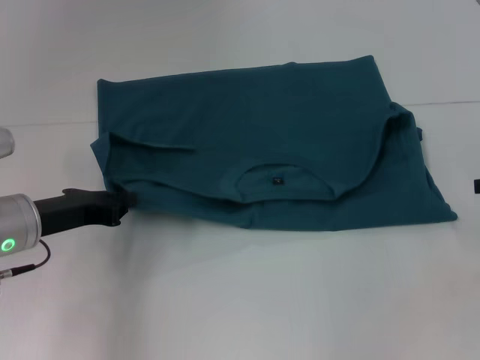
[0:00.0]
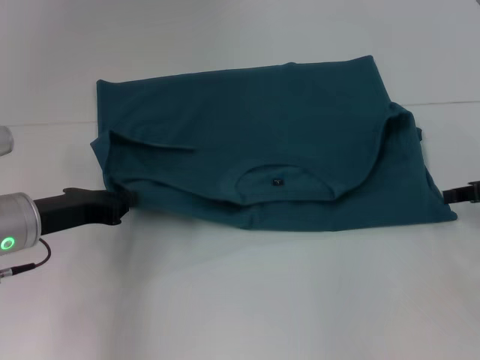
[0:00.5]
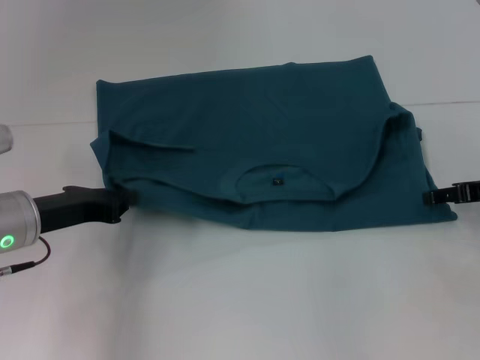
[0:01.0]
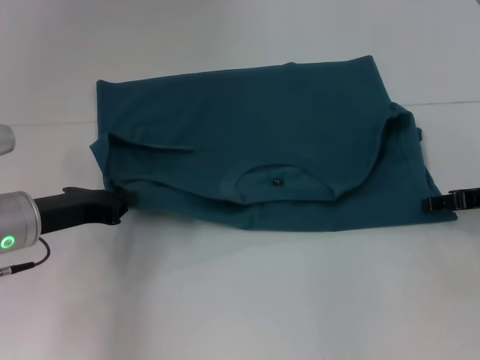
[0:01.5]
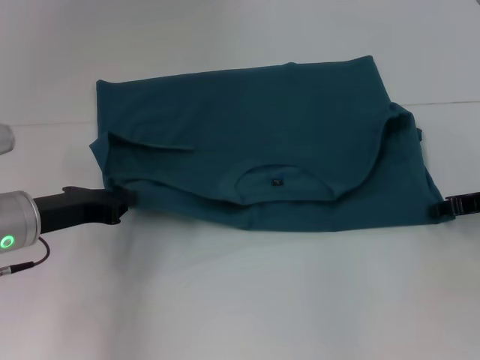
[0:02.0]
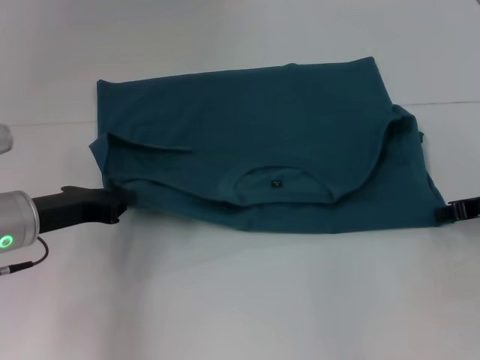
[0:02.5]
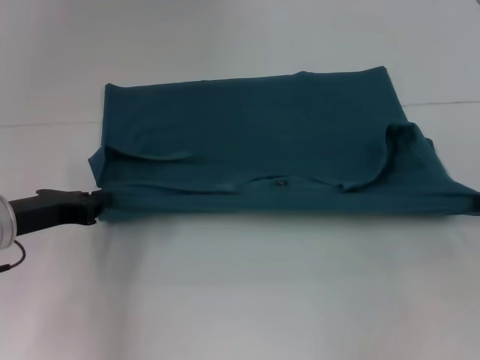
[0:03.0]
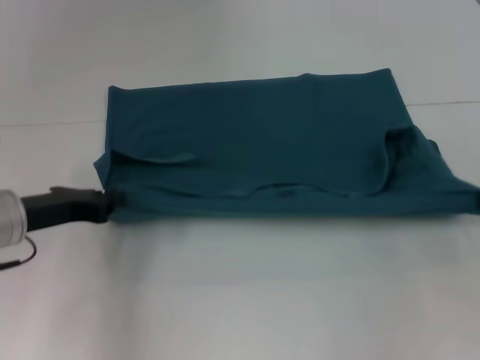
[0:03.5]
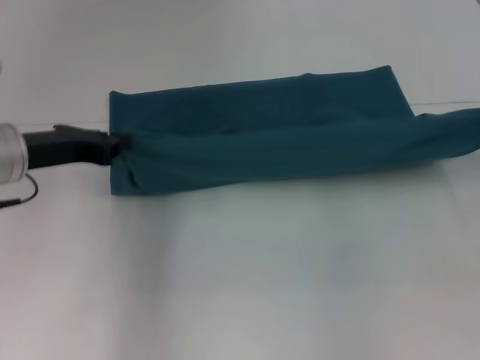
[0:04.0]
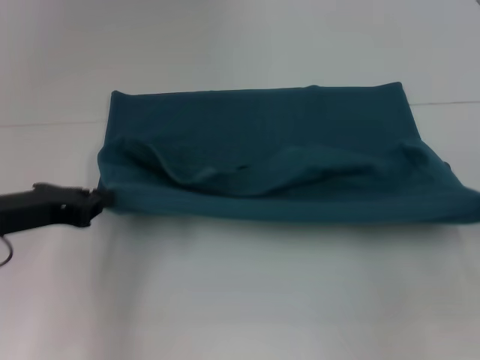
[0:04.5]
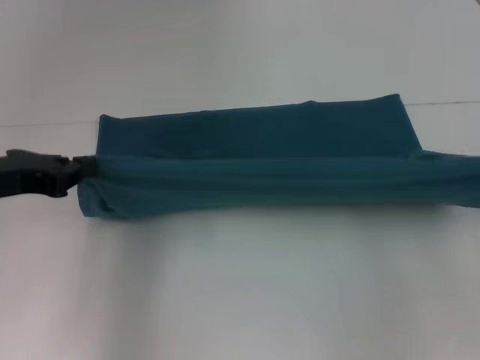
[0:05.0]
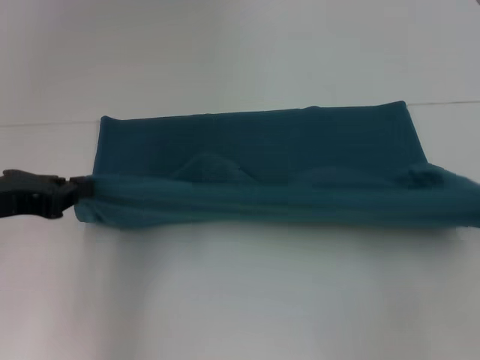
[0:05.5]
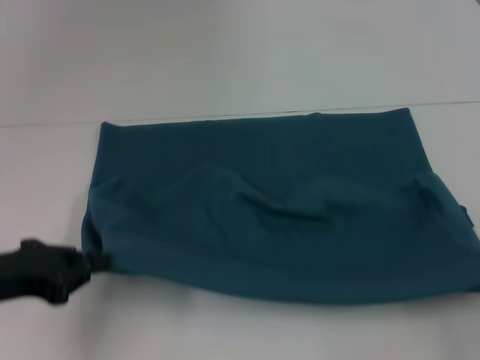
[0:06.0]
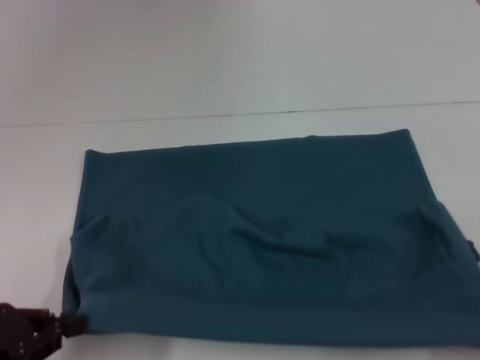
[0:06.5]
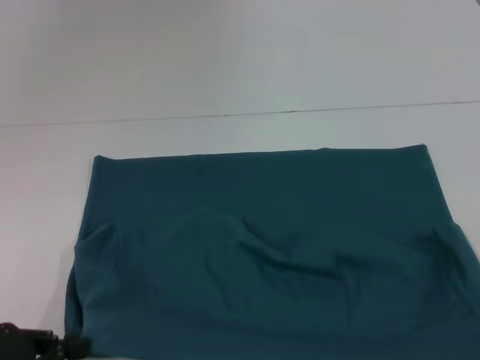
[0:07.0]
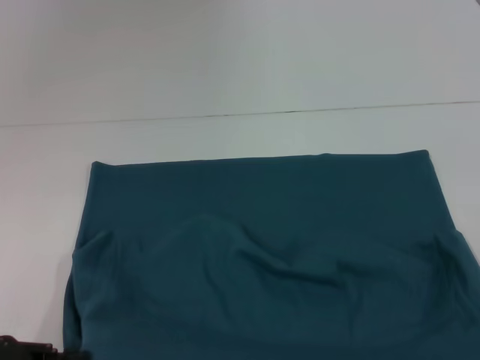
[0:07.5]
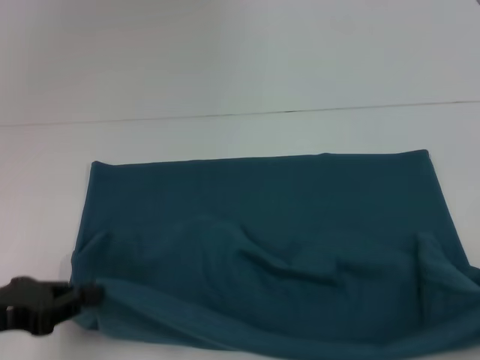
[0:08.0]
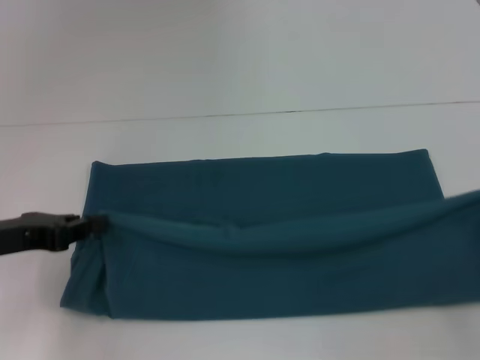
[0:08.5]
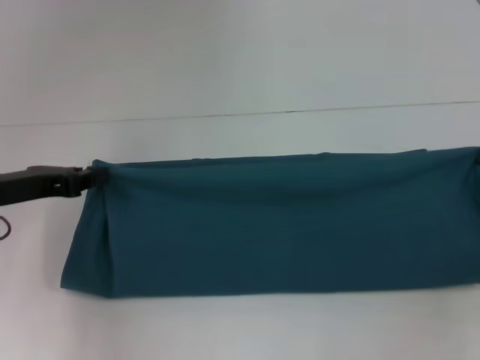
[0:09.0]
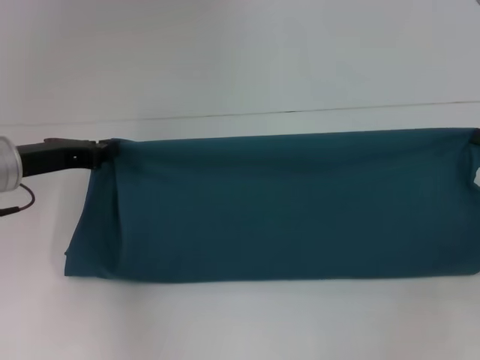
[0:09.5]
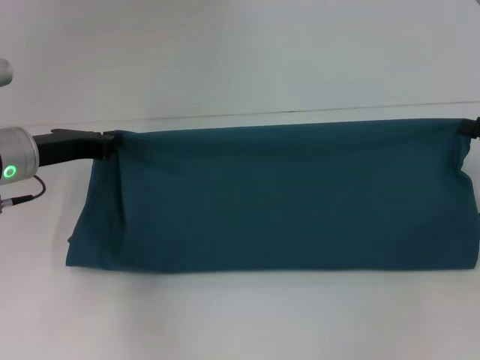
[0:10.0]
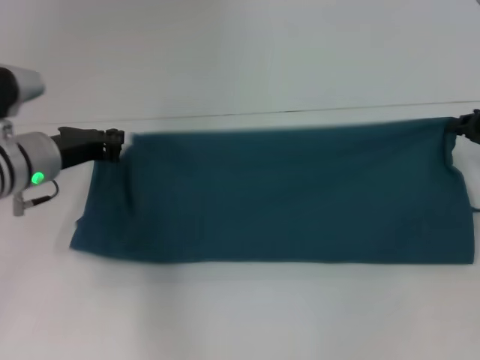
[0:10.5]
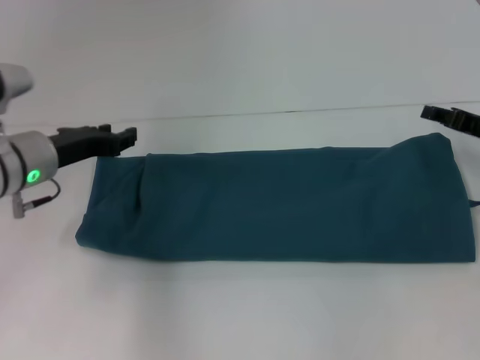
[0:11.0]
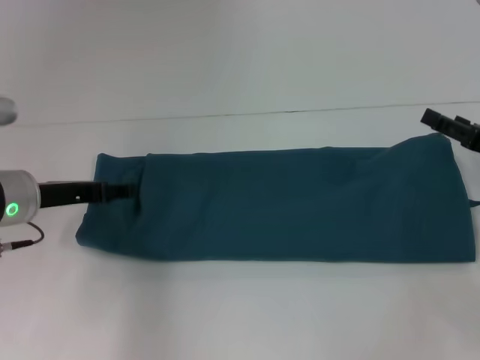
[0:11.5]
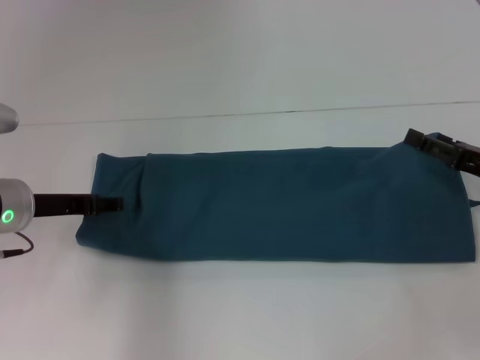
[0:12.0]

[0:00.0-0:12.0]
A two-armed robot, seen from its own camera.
Step, 0.0 to 6.5 s: Pull the clothes with your left hand.
Step, 0.0 to 6.5 s: Pull the clothes with your right hand.
Step, 7.0 to 11.0 s: Fold the clothes to the left.
Step, 7.0 to 11.0 s: Fold the clothes to the right.
0.0 to 2.0 s: The right gripper changes place by about 10 cm, and opens up.
2.0 to 4.0 s: The right gripper is displaced upward and to the right by about 10 cm, and closes up. Meanwhile the left gripper moves upward, roughly 5 cm.
4.0 to 6.0 s: The right gripper travels backward and downward by approximately 15 cm, while the left gripper shifts roughly 10 cm backward.
6.0 to 8.0 s: The right gripper moves backward, some 5 cm.
8.0 to 10.0 s: Both grippers move forward, some 20 cm.
10.0 to 12.0 s: The right gripper changes place by some 5 cm, and opens. The left gripper opens its fingers.

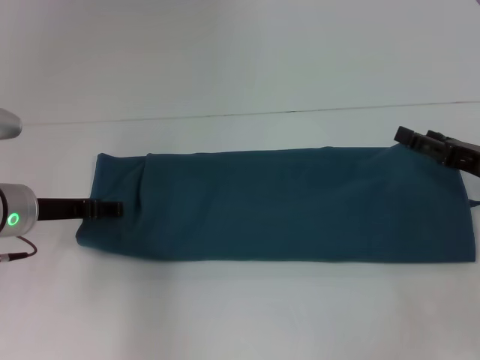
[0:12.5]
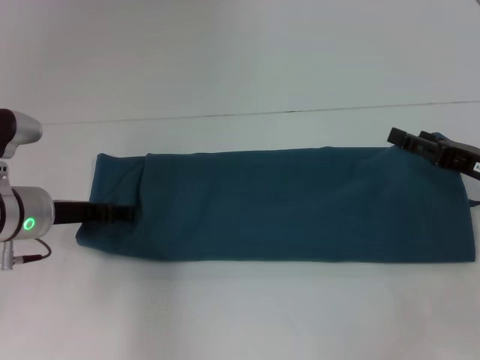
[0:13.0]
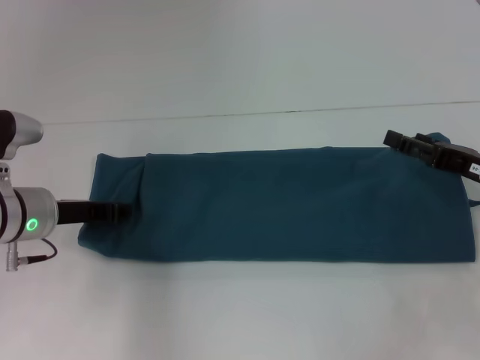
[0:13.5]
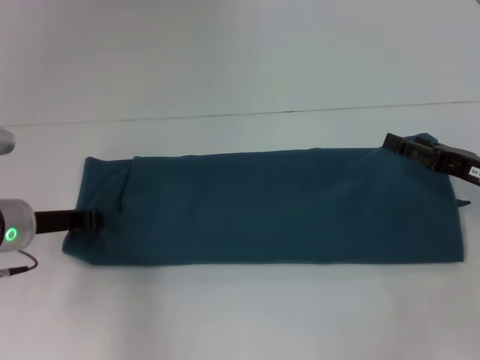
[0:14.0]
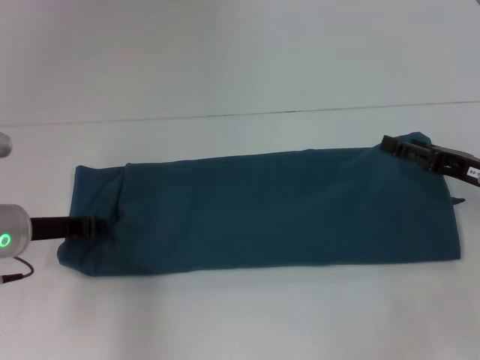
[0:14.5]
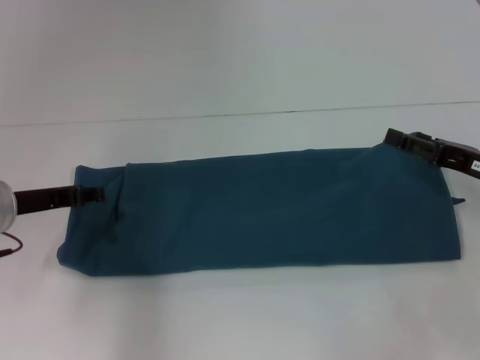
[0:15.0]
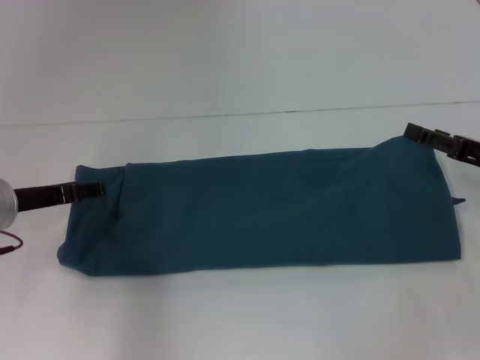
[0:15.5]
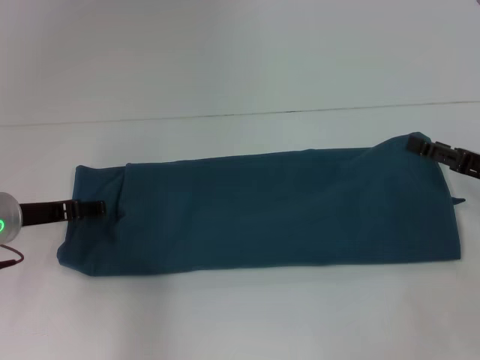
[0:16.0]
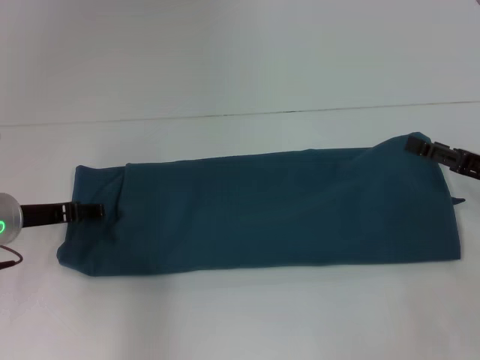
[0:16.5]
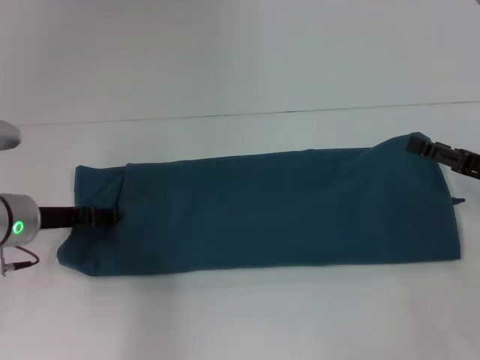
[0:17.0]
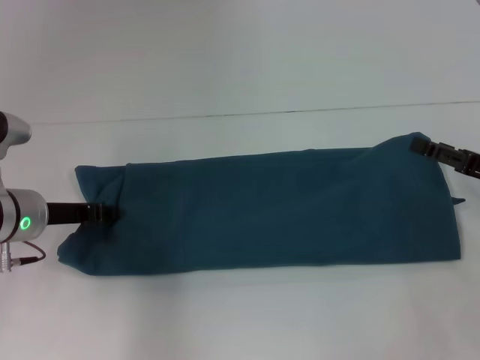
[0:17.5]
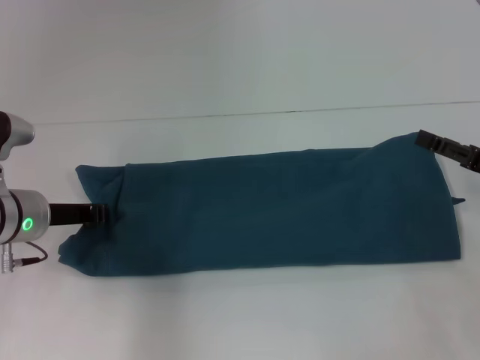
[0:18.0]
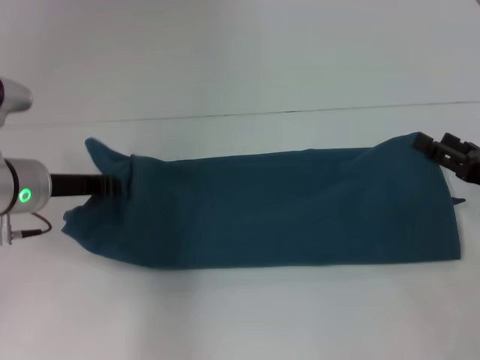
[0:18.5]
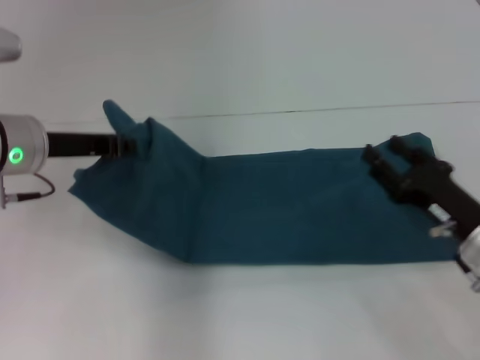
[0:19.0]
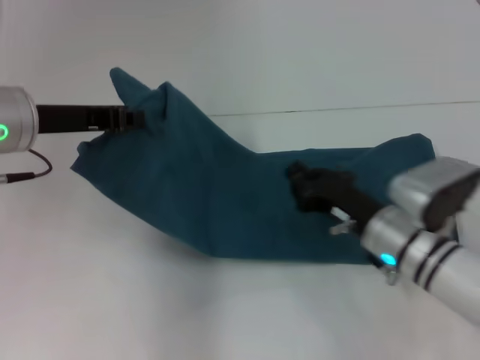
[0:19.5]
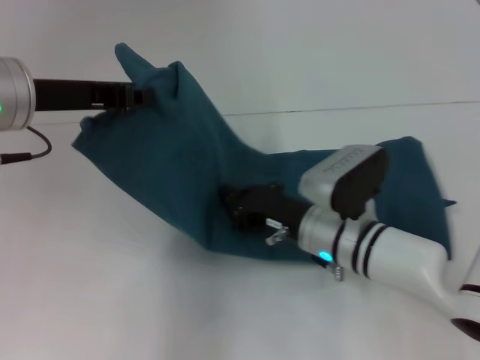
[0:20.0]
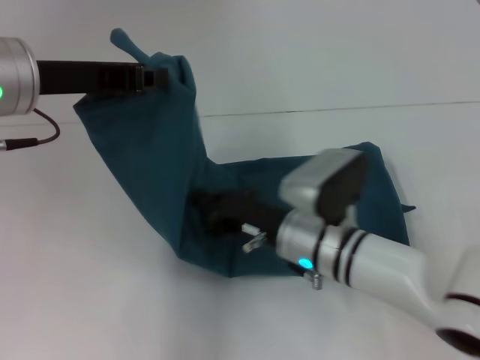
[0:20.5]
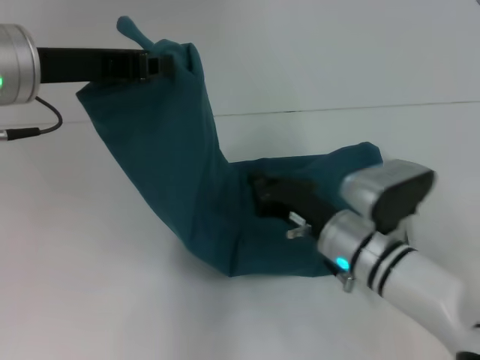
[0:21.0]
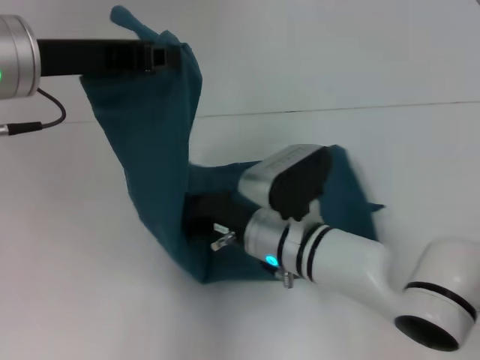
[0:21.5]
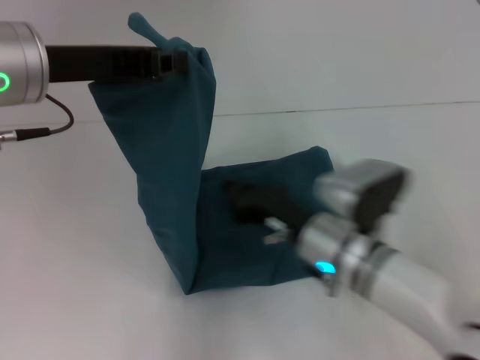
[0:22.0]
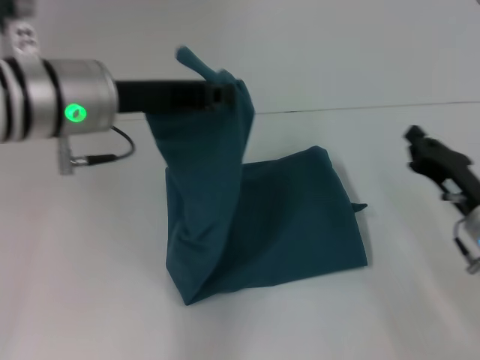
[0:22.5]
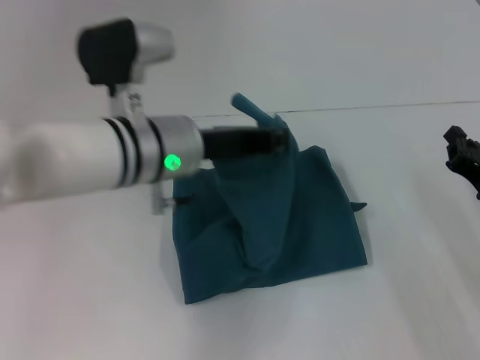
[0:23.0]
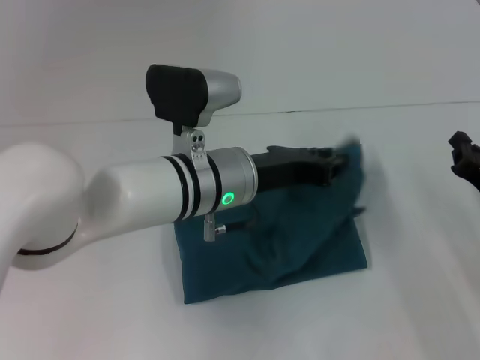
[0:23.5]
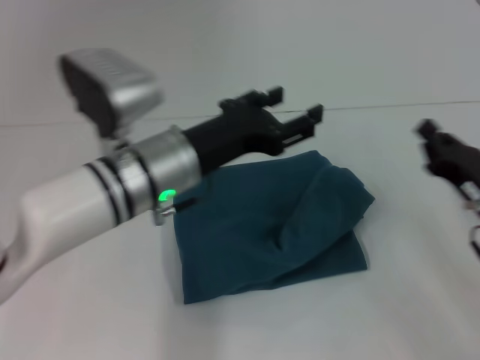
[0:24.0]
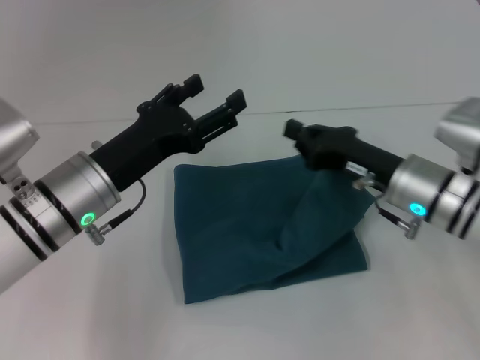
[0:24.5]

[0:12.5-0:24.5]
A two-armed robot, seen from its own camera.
Step, 12.5 to 21.5 s: Press the middle of the clothes with your right hand.
Step, 22.0 to 23.5 s: Fold the clothes to the left.
12.5 to 14.5 s: The left gripper closes its fingers.
14.5 to 16.5 s: The left gripper opens.
16.5 to 18.5 s: The left gripper closes its fingers.
18.5 to 20.5 s: The left gripper goes some 15 cm upward. Meanwhile the right gripper is displaced to the left by roughly 25 cm, and closes.
20.5 to 22.5 s: The right gripper moves left and right over roughly 20 cm, changing direction 2 times; the left gripper shifts by some 5 cm.
22.5 to 24.5 s: The right gripper heads to the left, covering some 5 cm. Meanwhile the left gripper travels downward by roughly 10 cm, moves approximately 10 cm to the right and comes back, and opens its fingers.

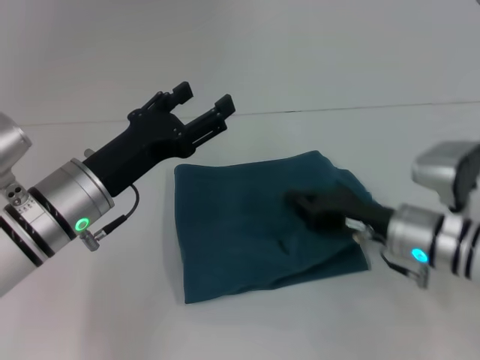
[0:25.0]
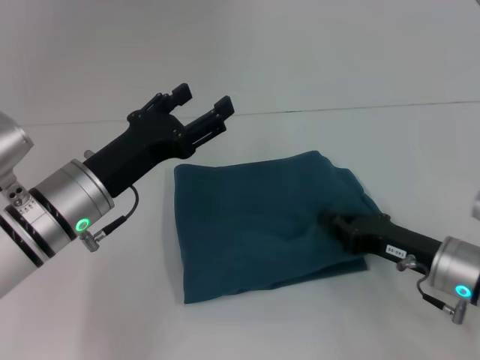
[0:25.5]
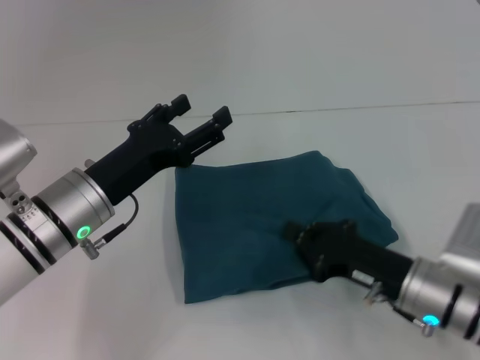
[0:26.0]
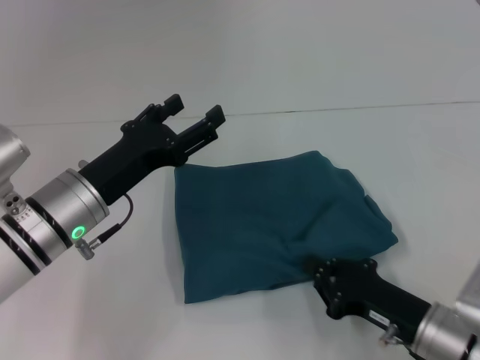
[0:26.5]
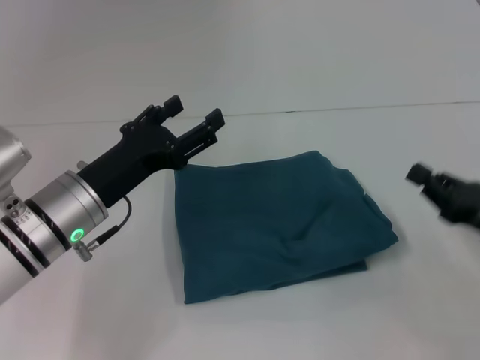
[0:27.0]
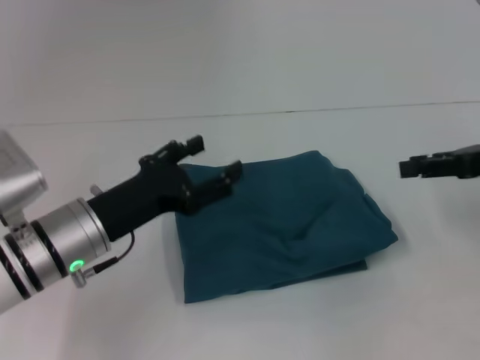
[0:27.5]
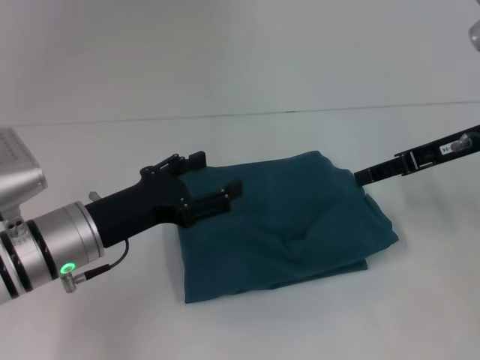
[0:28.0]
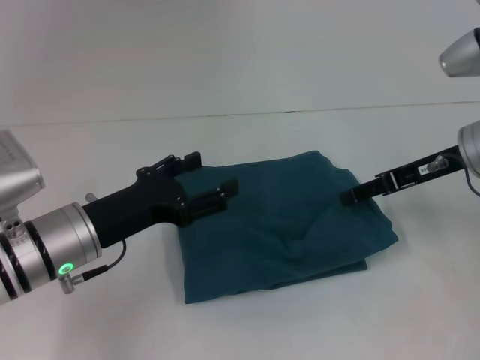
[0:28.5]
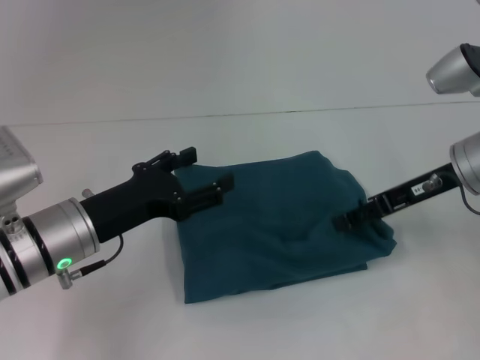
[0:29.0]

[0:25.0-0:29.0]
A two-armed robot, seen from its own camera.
25.0 to 27.0 s: The right gripper goes approximately 15 cm to the right and backward.
27.0 to 29.0 s: The right gripper is displaced forward, upward and to the left by roughly 15 cm, and opens up.
